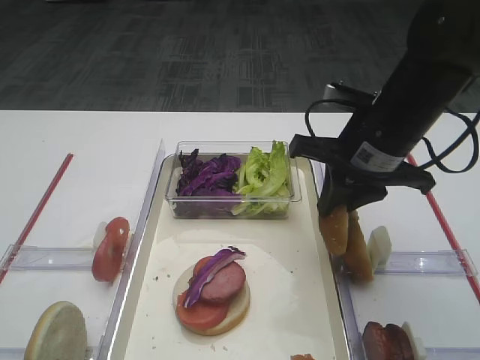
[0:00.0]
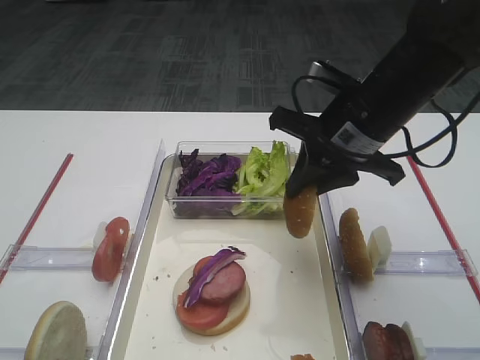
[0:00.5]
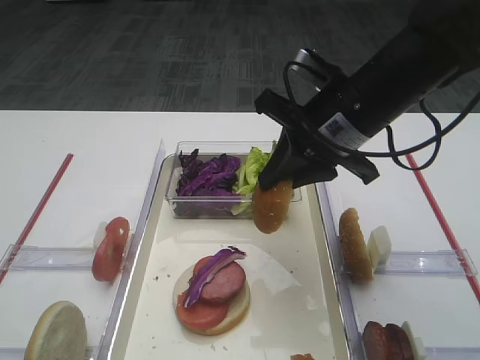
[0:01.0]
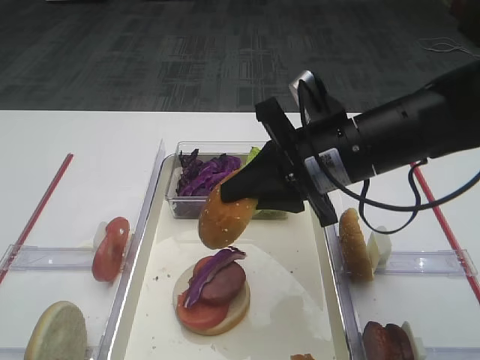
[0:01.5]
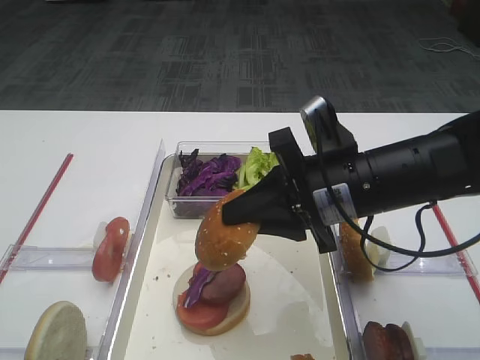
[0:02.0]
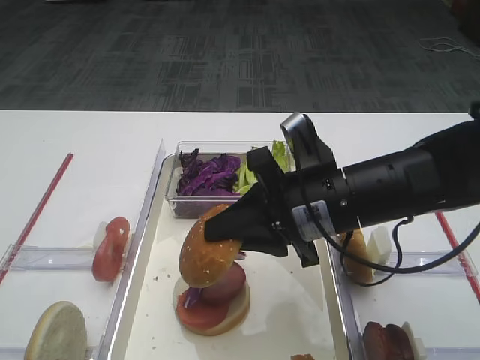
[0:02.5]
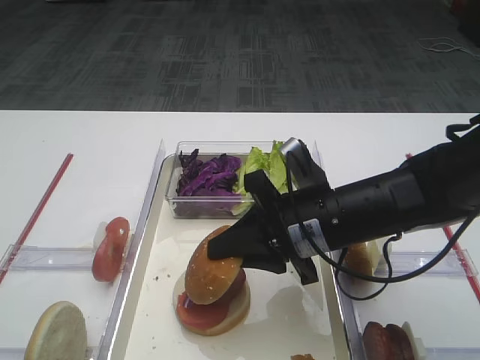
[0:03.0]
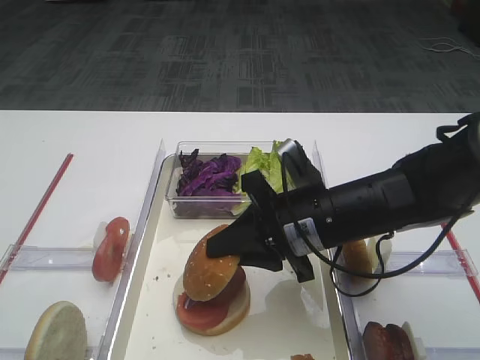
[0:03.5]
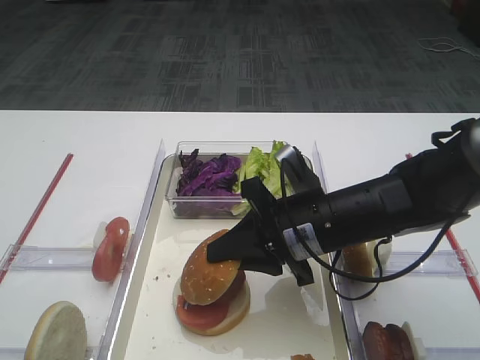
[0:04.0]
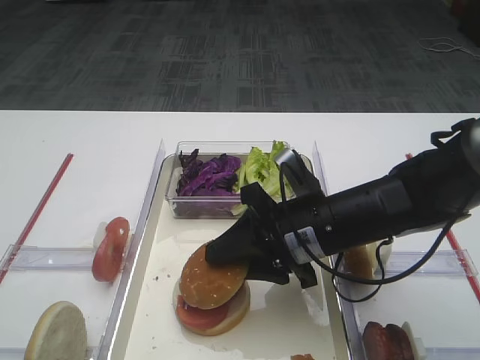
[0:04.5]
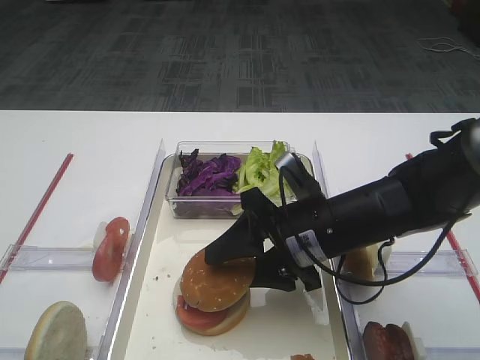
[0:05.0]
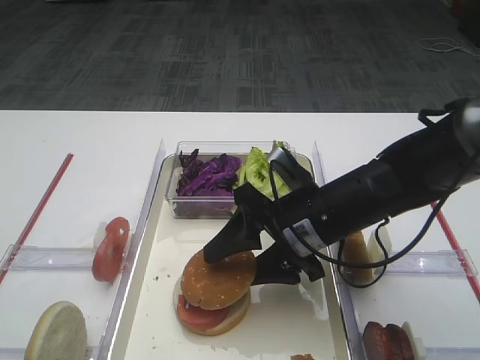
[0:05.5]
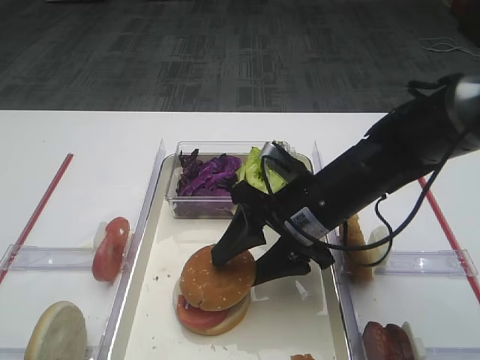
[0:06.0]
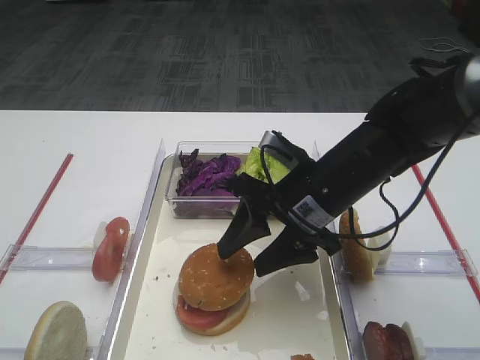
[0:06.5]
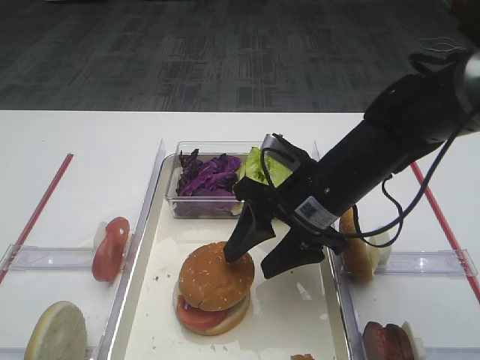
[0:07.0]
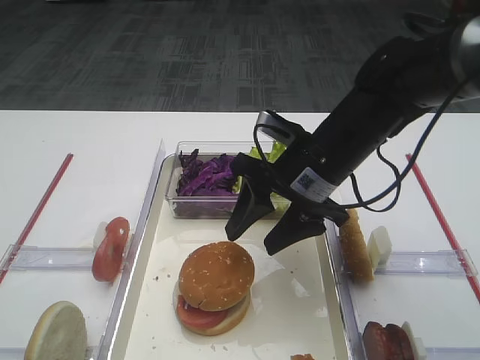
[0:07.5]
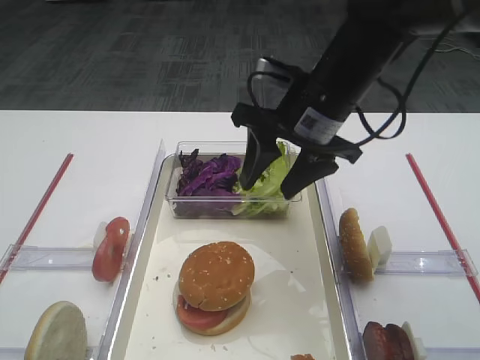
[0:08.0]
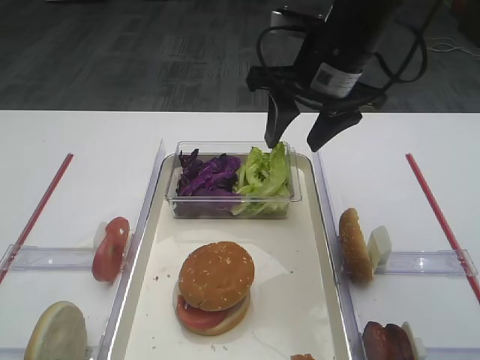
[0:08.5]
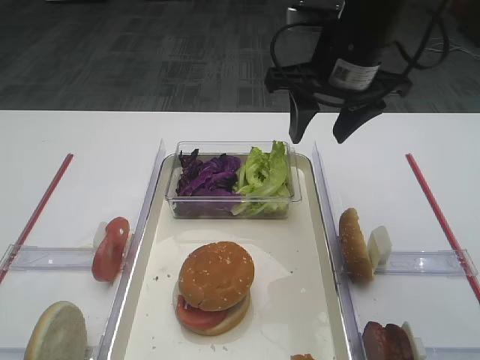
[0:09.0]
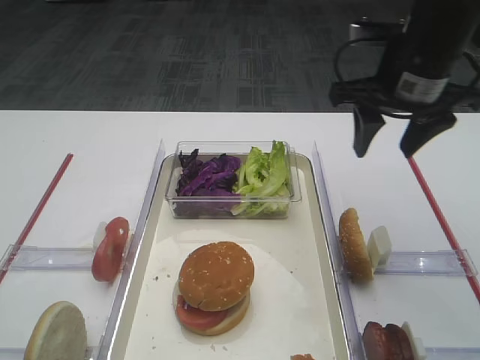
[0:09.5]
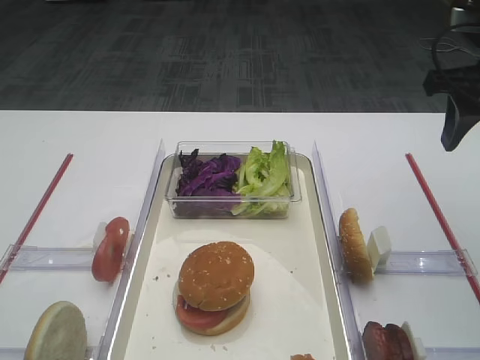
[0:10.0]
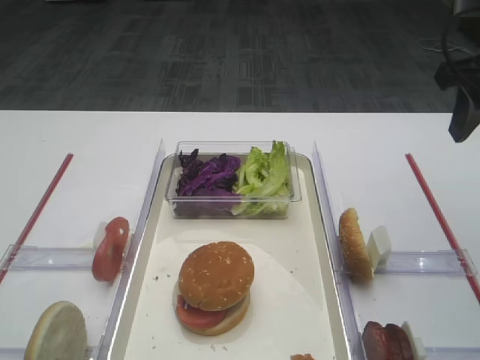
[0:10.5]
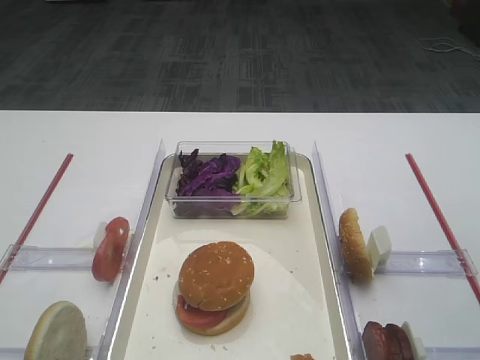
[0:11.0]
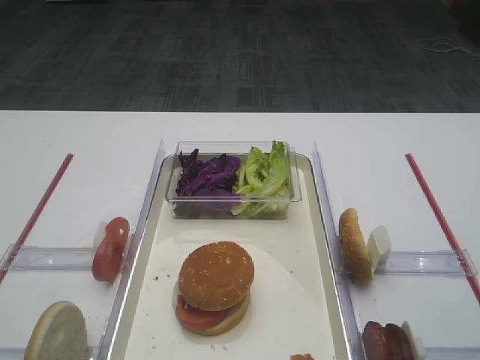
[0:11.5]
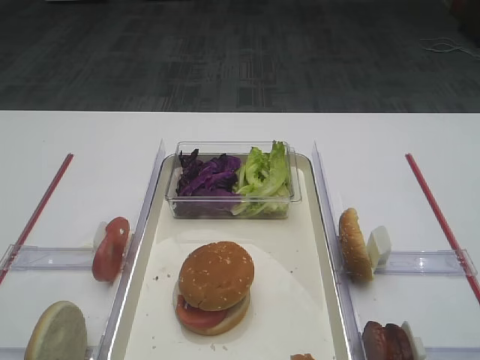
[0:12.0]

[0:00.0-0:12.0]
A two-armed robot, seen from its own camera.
Step, 0:00.0 to 0:07.0: Place the hamburger lid on the purple cabbage with the right gripper.
0:00.0 to 0:02.0: The right gripper travels backward by roughly 5 cm.
0:02.0 to 0:04.0: The right gripper heads downward, covering roughly 5 cm.
0:04.0 to 0:06.0: The right gripper opens up.
0:06.0 to 0:08.0: The right gripper shifts approximately 10 cm upward and forward.
0:08.0 to 0:10.0: The right gripper shifts roughly 15 cm to the right.
0:10.0 to 0:12.0: The right gripper heads backward, covering approximately 25 cm.

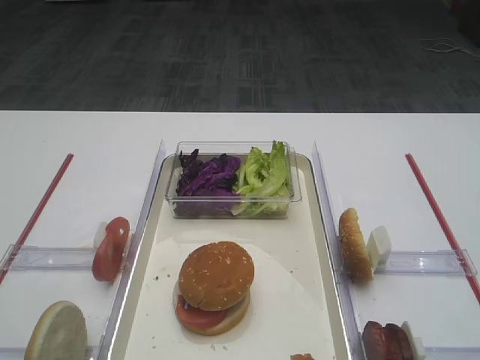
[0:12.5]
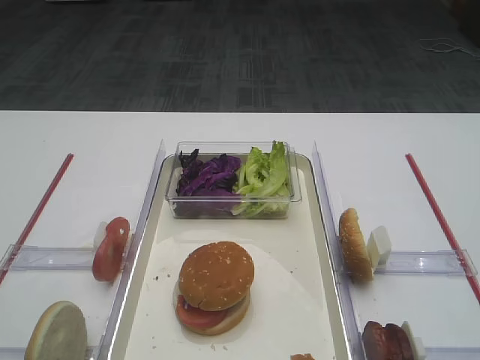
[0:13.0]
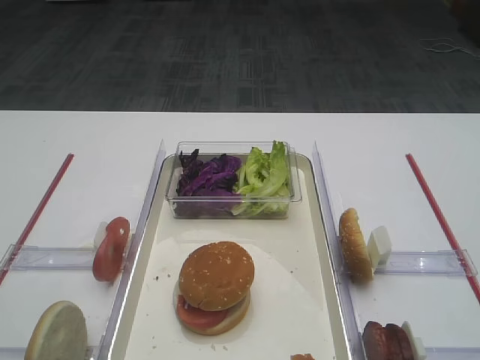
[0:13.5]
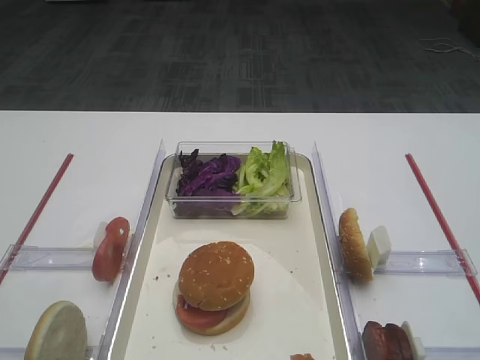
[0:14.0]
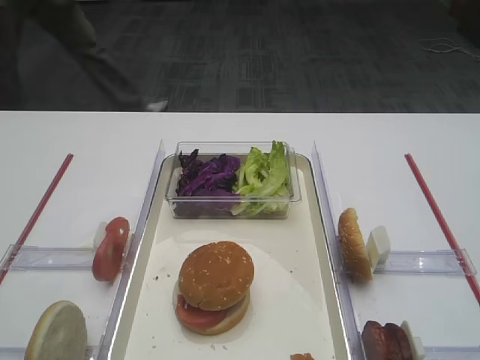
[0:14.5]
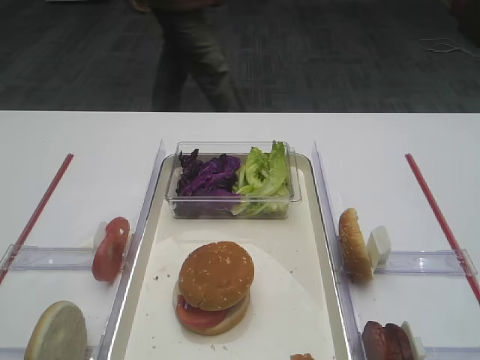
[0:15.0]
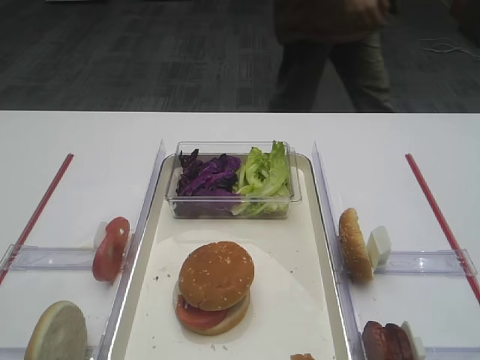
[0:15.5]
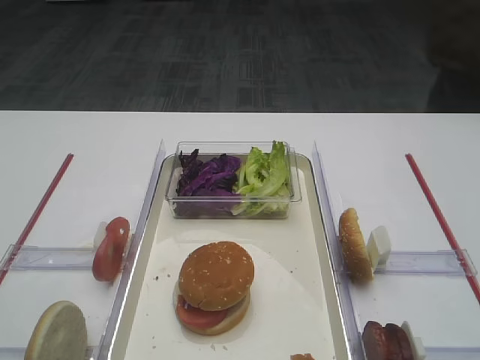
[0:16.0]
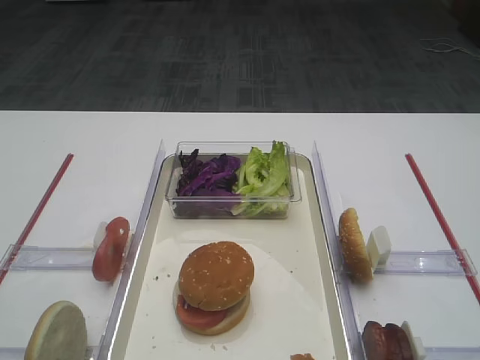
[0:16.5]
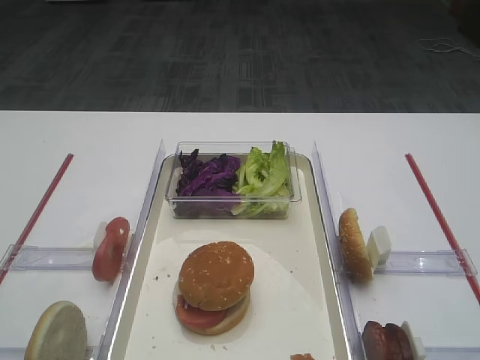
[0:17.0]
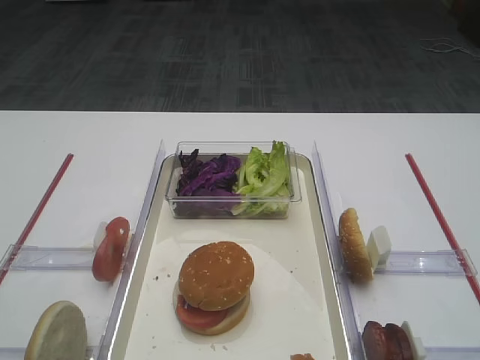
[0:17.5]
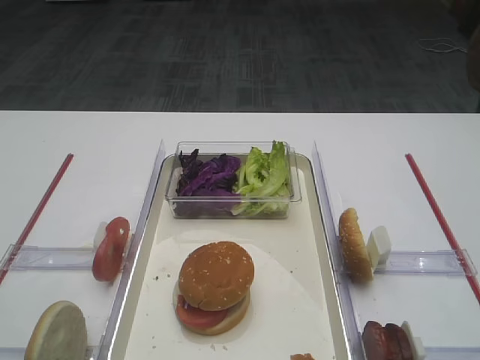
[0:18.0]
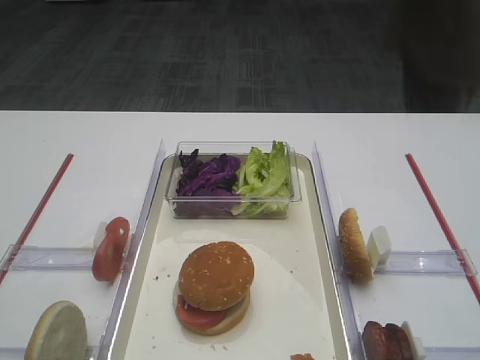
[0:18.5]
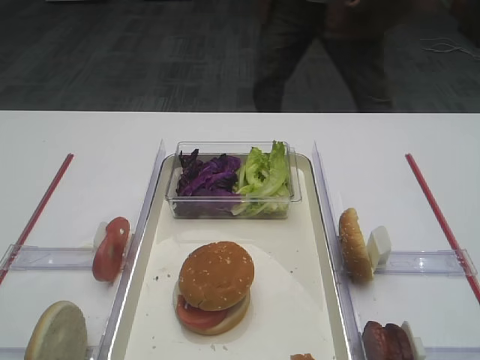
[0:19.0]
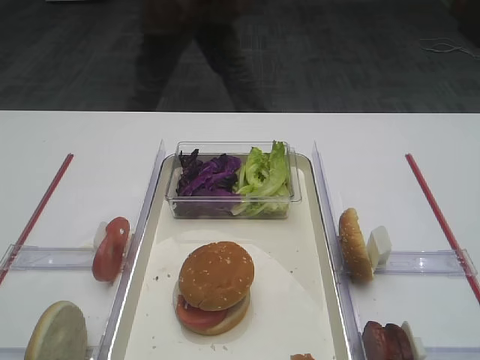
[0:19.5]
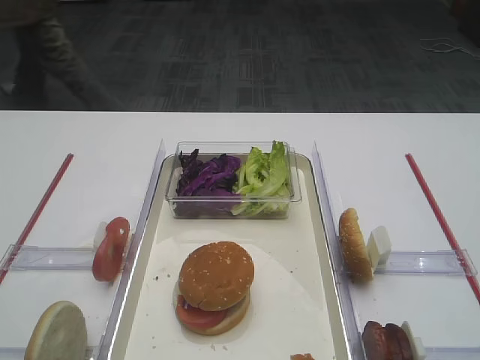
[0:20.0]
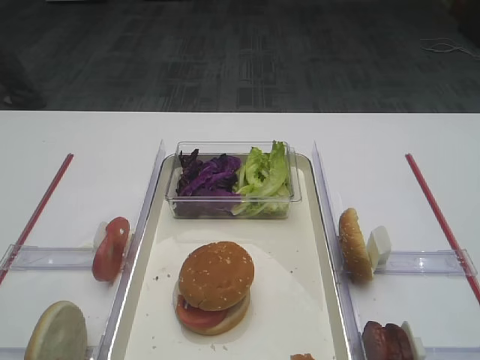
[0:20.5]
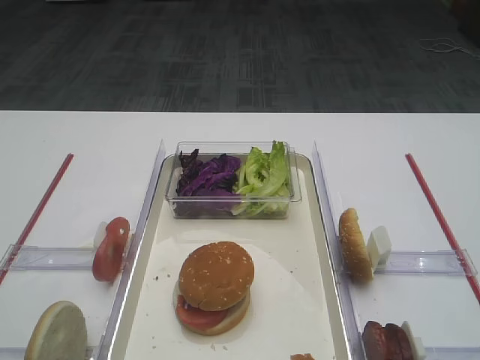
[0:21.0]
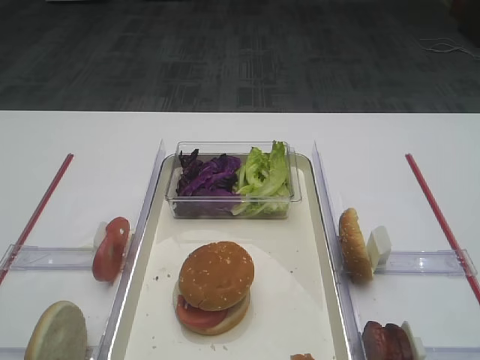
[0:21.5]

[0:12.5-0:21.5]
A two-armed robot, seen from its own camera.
0:14.5 to 0:21.5: Neither gripper changes place.
